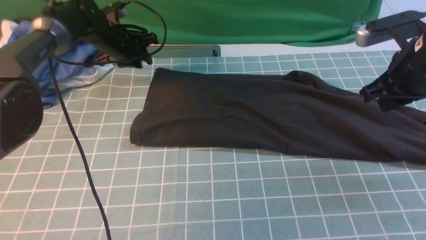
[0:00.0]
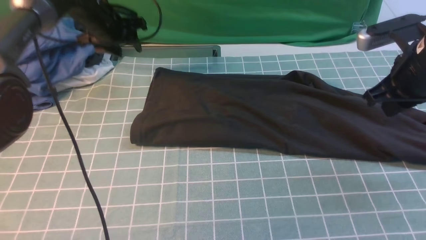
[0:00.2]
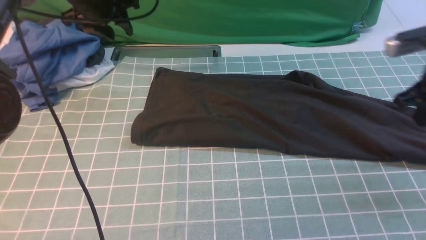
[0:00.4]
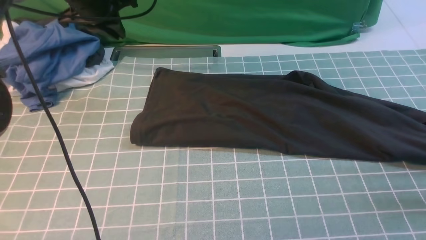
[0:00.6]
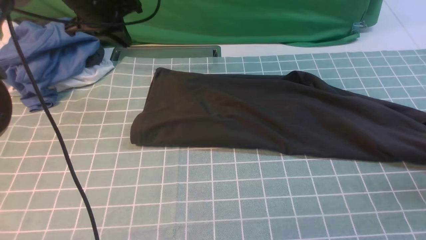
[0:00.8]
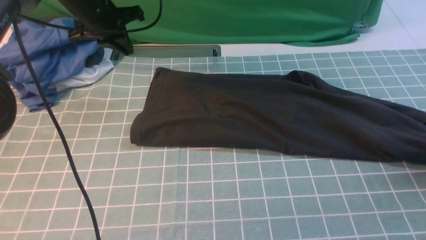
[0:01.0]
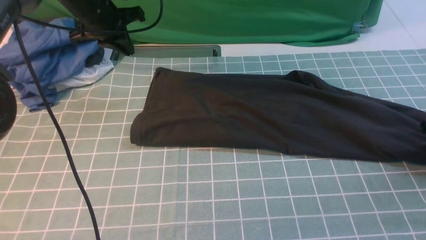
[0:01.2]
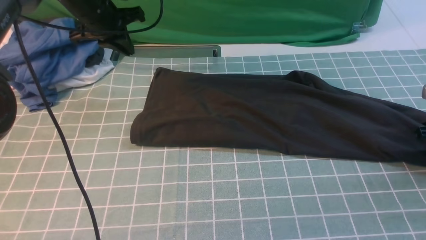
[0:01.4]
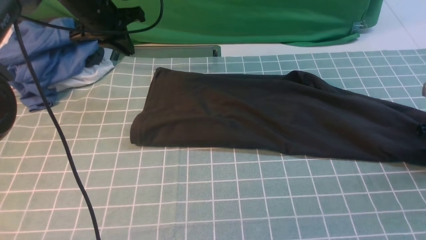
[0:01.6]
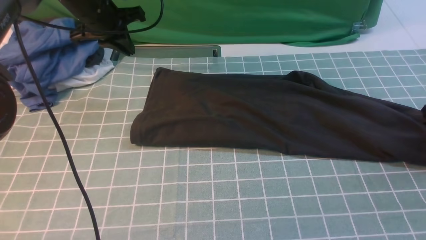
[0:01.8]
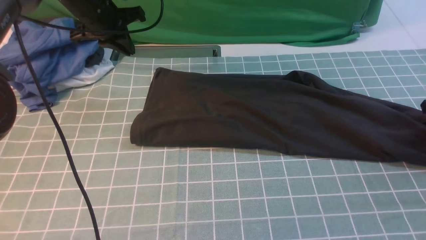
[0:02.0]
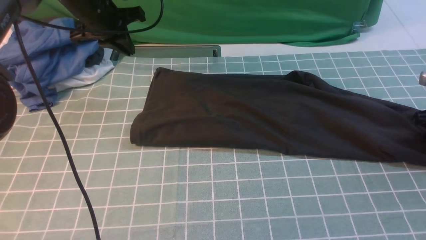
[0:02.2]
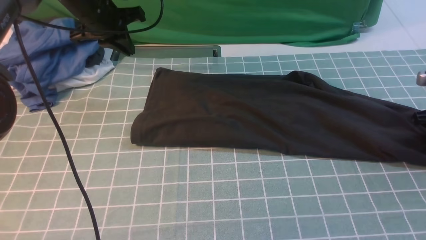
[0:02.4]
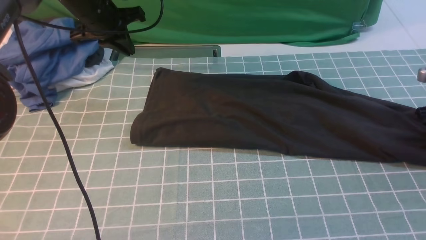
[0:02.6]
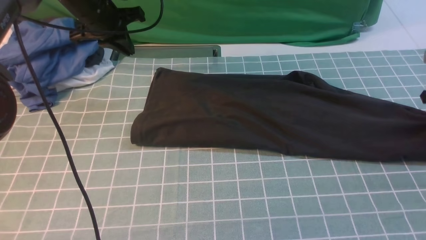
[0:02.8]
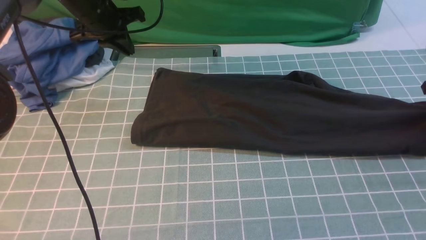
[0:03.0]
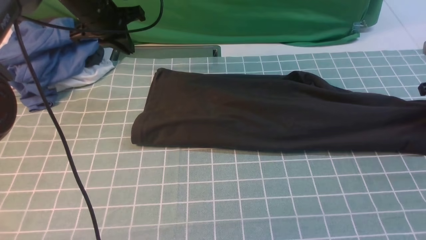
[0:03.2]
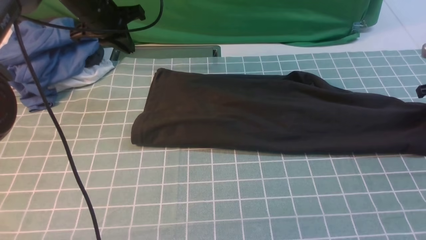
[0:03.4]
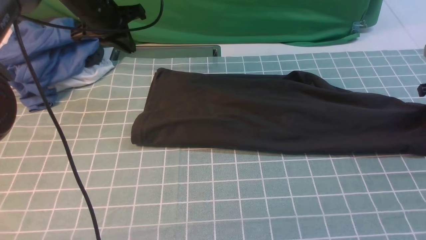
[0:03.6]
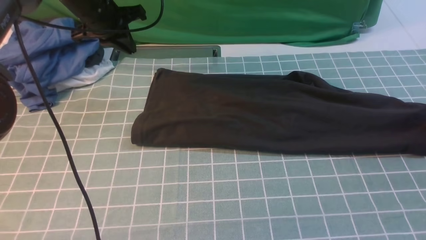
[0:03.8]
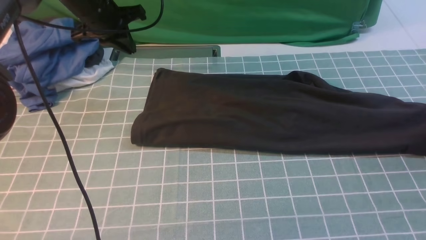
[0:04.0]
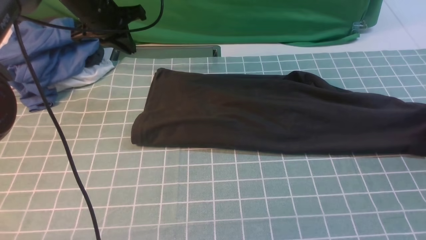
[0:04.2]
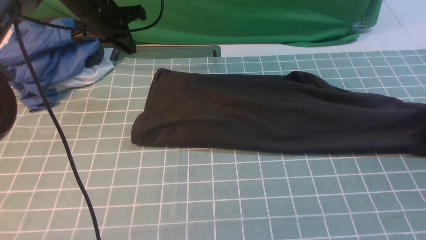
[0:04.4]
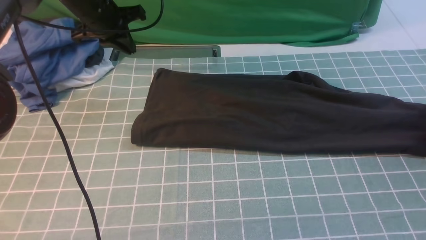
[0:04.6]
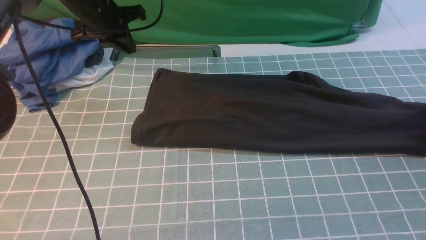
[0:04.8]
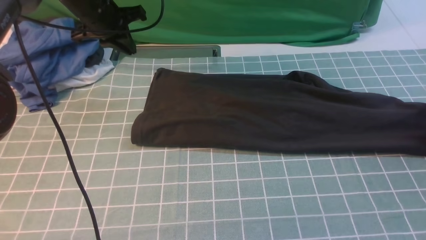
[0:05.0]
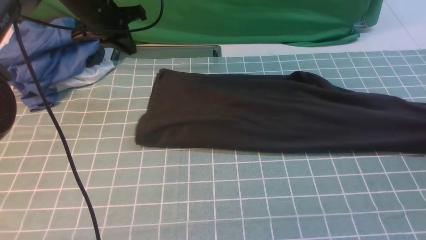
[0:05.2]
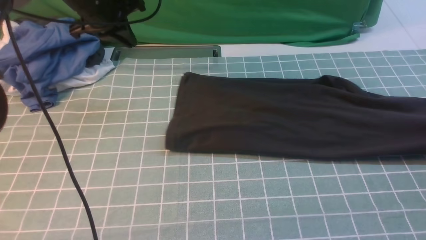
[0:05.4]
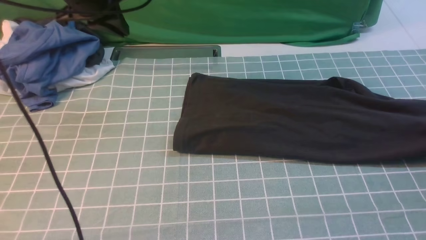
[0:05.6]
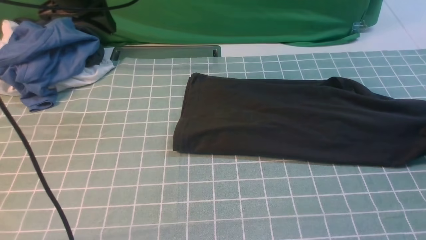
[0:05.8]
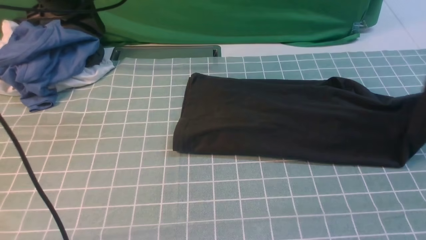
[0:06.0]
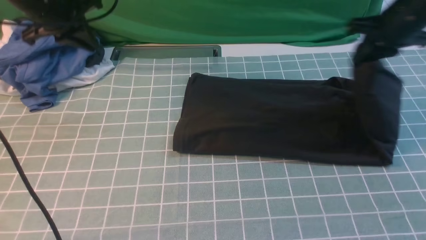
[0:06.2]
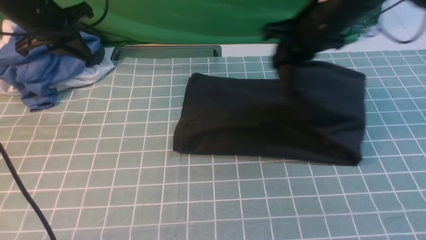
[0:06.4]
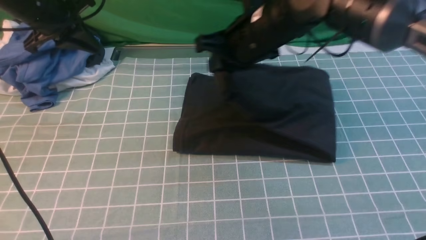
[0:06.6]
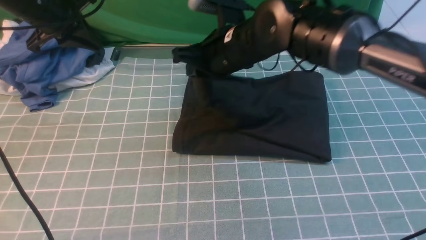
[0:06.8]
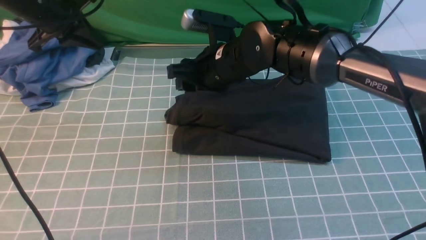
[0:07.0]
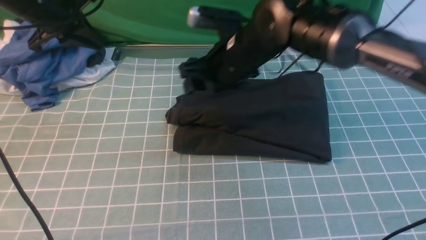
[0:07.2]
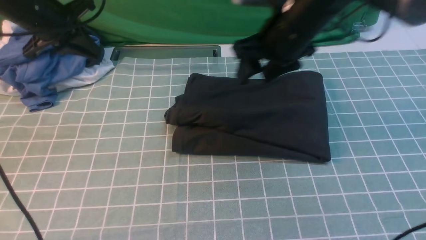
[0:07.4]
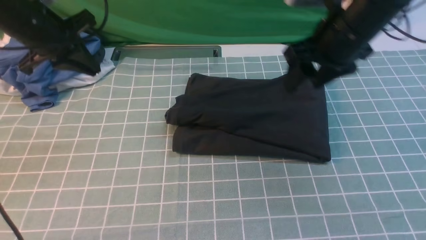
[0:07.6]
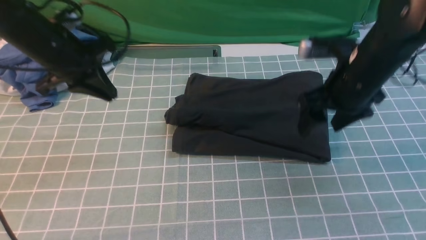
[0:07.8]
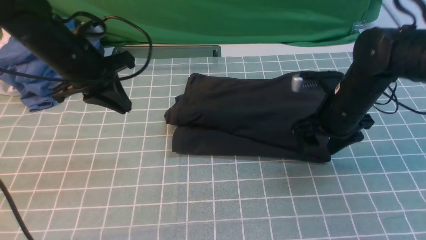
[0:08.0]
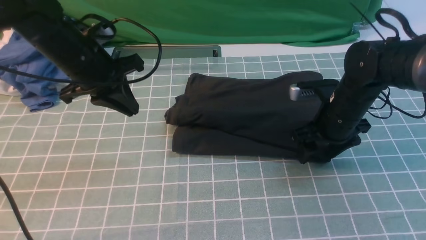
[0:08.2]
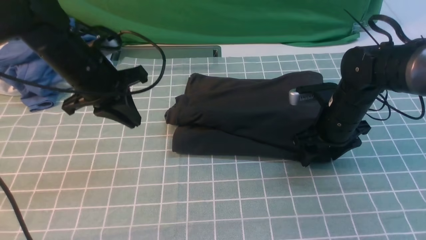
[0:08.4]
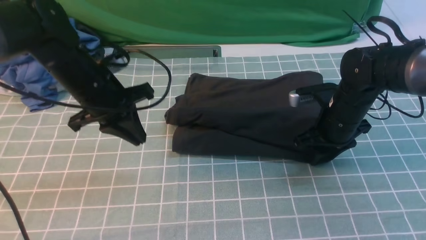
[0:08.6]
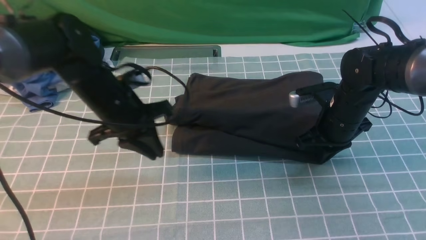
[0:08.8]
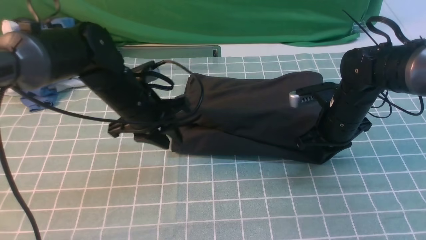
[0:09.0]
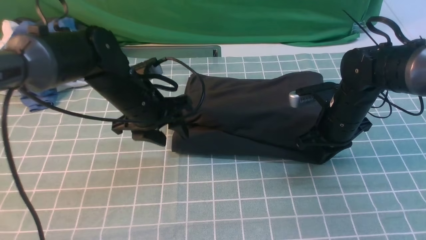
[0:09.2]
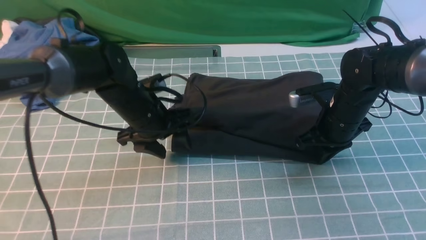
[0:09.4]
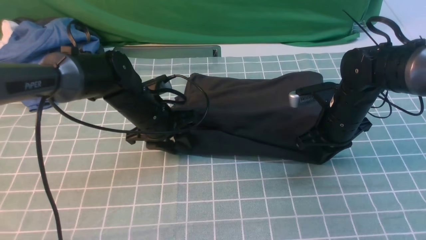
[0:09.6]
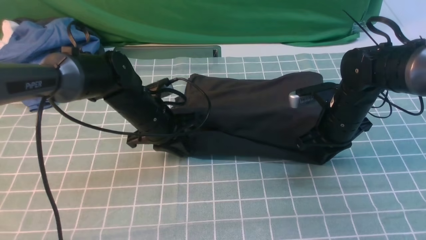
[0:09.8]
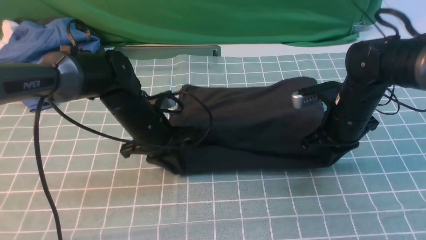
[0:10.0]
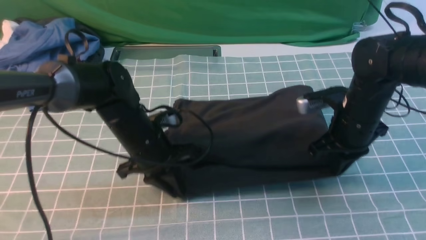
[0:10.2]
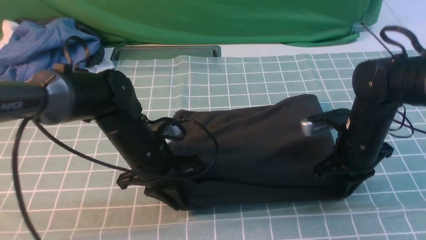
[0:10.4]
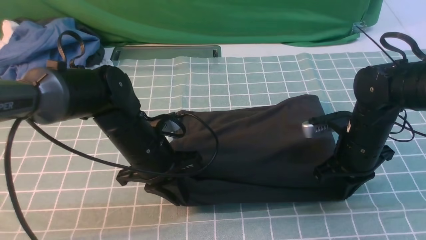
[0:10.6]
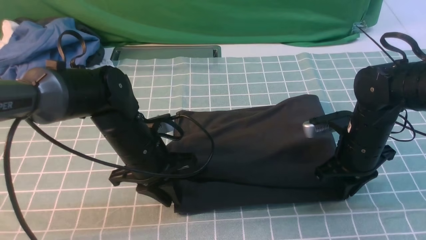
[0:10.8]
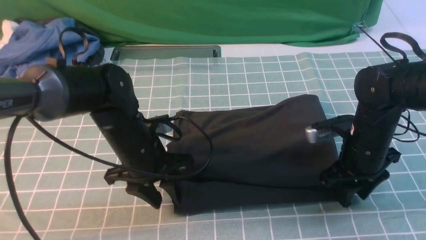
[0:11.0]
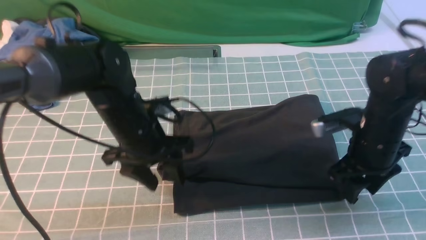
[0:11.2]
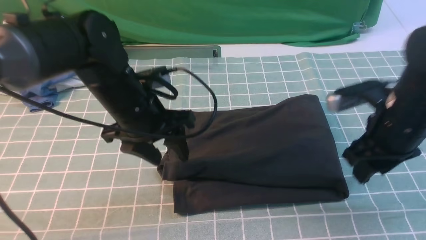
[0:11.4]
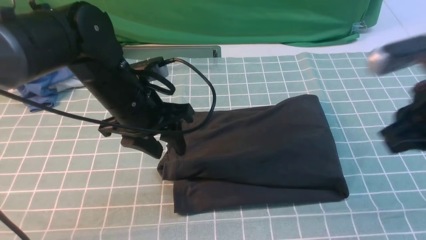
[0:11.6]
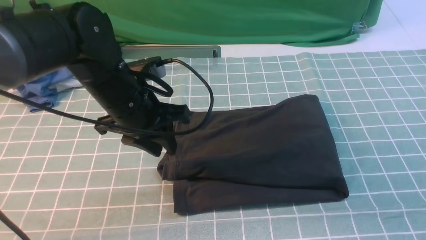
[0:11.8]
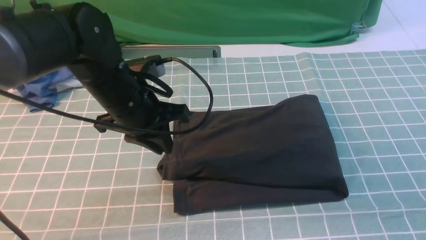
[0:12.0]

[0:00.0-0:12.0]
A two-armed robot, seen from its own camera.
Step, 0.0 to 5.2 s: use the right arm to clamp the right edge of the fabric.
Step, 5.4 to 7.0 s: use the right arm to drag the right edge of the fabric to the left and folds it over the left edge.
0.0 to 1.6 s: The right gripper goes roughly 20 cm to the right and downward, and opens; the left gripper shifts approximately 5 cm upward, and closes its fingers.
1.6 to 3.0 s: The right gripper is displaced forward by some 5 cm, and closes up.
3.0 to 4.4 s: The right gripper ends up roughly 5 cm from where it was, and opens its fingers.
4.4 to 6.0 s: The right gripper travels upward and to the left by about 20 cm, and closes its fingers, while the left gripper travels upward by roughly 5 cm.
6.0 to 7.6 s: The left gripper changes place by some 5 cm; the right gripper travels to the left by approximately 20 cm, and opens.
7.6 to 9.0 s: The left gripper moves to the right and downward, about 15 cm, and opens up; the right gripper travels downward by approximately 15 cm, and closes up.
9.0 to 10.4 s: The left gripper moves backward, approximately 5 cm, and closes its fingers.
10.4 to 12.0 s: The right gripper heads backward and upward, covering approximately 35 cm, and opens and closes again. Meanwhile the left gripper moves upward, some 10 cm, and opens and closes again.

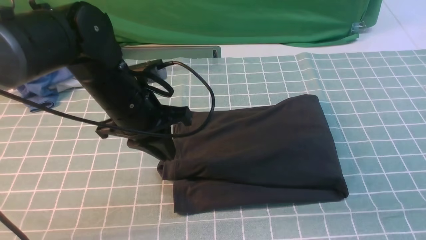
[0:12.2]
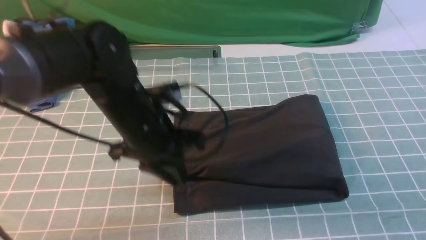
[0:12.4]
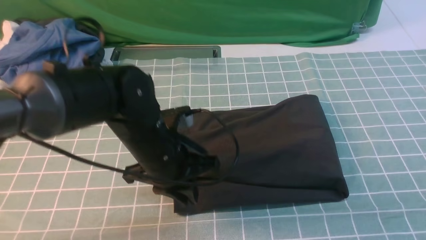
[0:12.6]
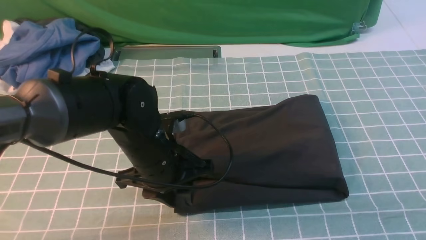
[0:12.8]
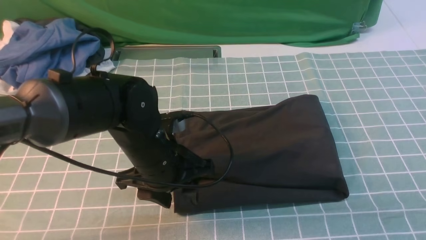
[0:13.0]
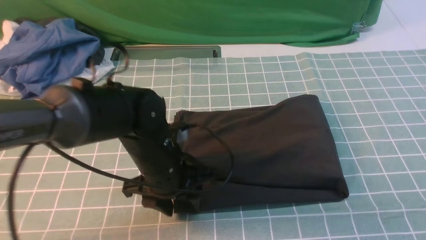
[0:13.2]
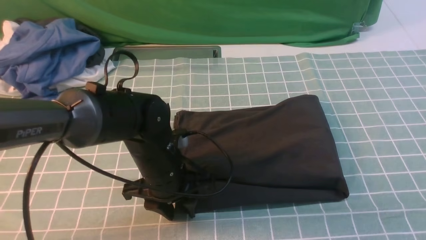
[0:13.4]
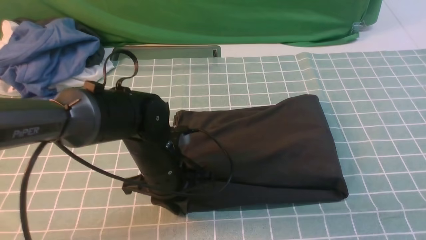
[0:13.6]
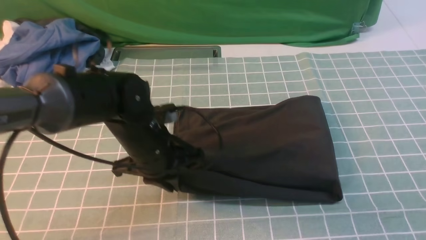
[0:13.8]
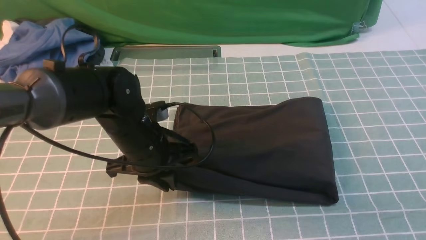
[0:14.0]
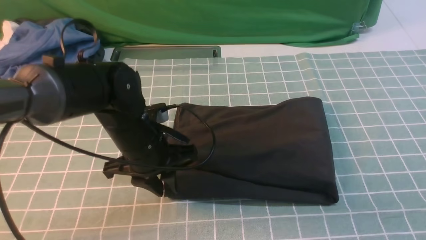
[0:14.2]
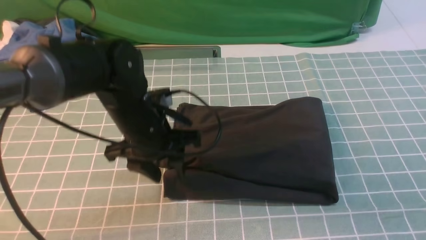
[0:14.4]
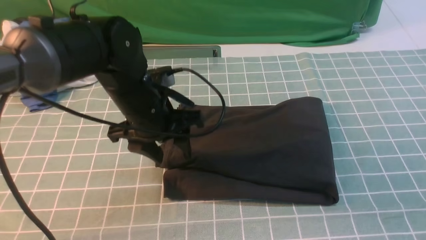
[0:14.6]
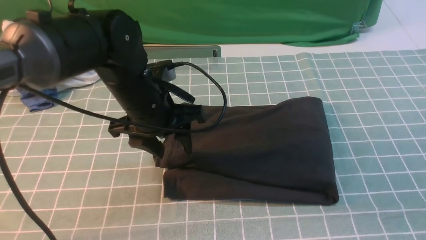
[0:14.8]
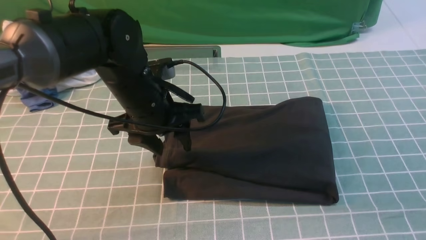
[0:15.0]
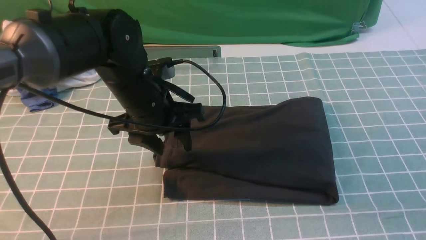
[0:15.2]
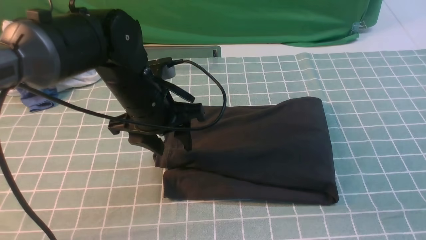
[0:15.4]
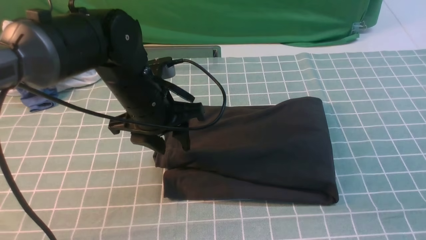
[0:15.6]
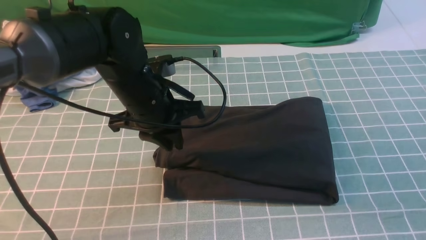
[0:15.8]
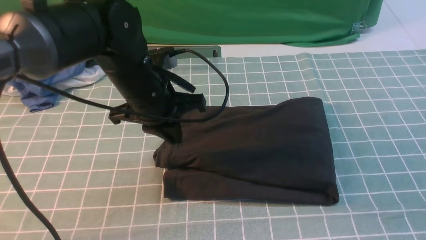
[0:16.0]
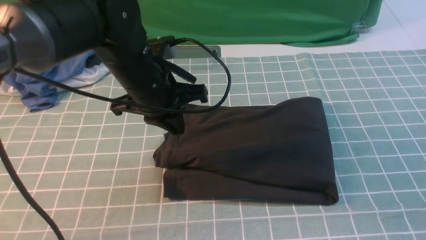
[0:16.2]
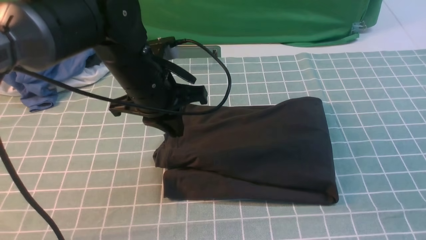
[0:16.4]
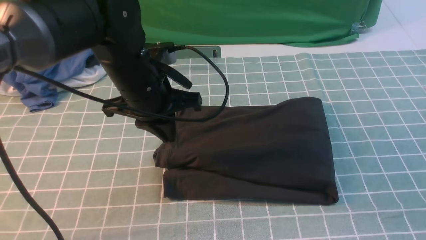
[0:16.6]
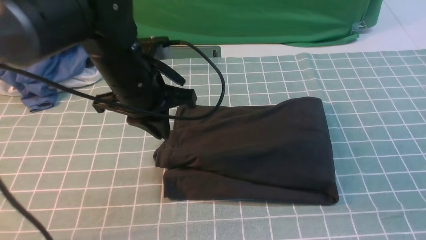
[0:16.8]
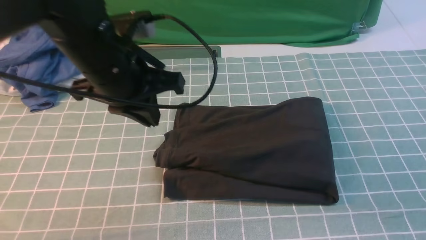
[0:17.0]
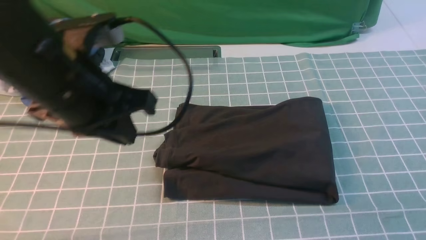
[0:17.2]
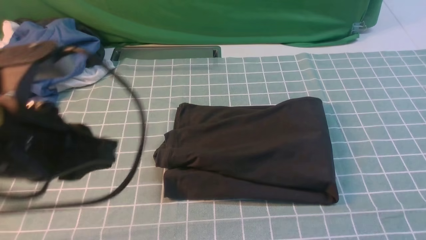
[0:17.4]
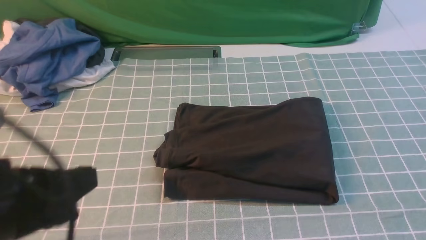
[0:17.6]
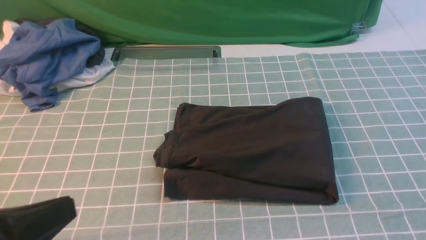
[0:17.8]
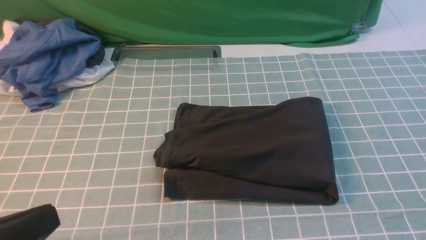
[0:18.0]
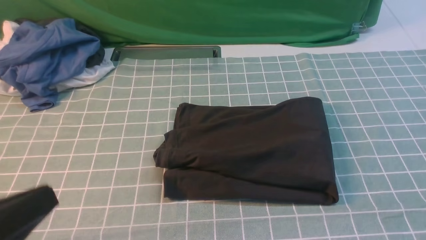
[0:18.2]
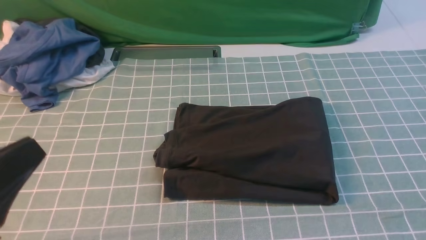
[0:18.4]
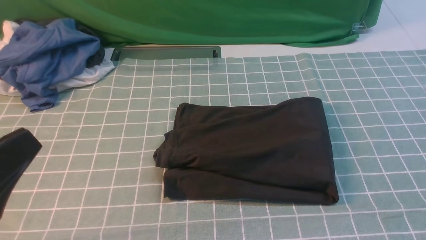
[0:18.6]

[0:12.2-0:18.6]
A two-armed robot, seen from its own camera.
12.2 to 13.8 s: The left gripper travels downward by approximately 5 cm, and opens and closes again.
13.8 to 15.4 s: The left gripper shifts roughly 5 cm upward, and opens; the right gripper shifts some 10 cm forward and downward.
15.4 to 17.0 s: The left gripper heads upward, covering some 10 cm, and closes. The right gripper travels downward by approximately 15 cm.
17.0 to 18.6 s: The left gripper is displaced backward and to the left by about 25 cm.
